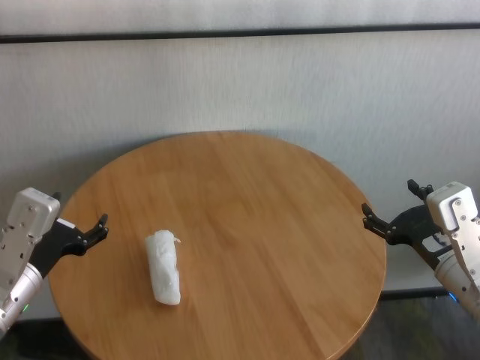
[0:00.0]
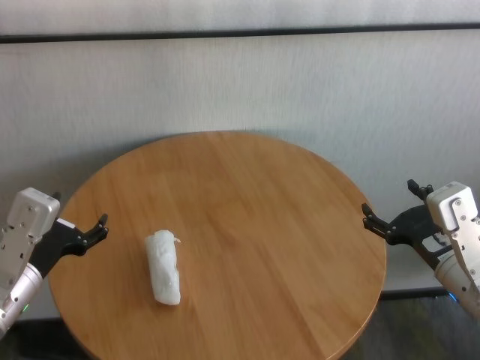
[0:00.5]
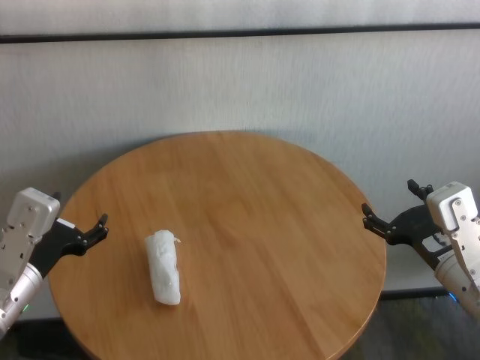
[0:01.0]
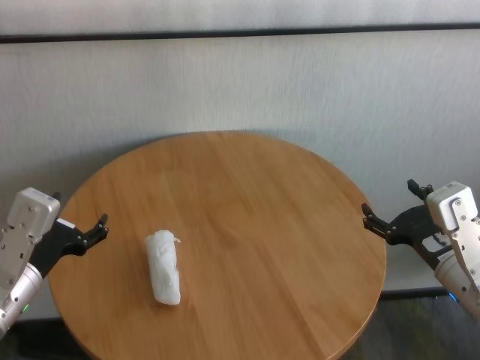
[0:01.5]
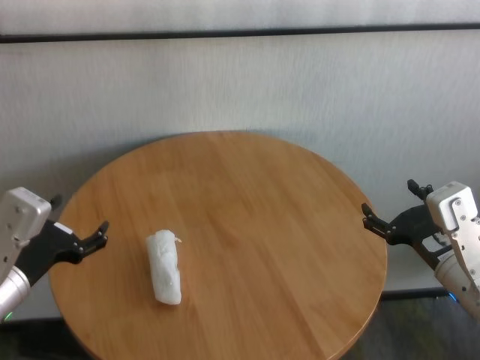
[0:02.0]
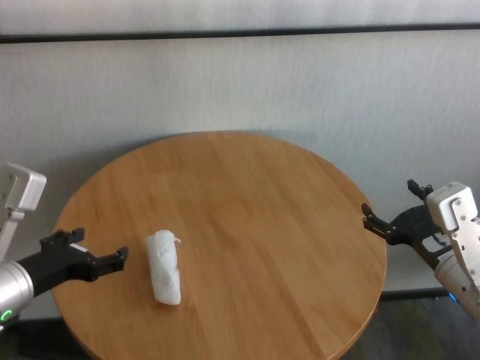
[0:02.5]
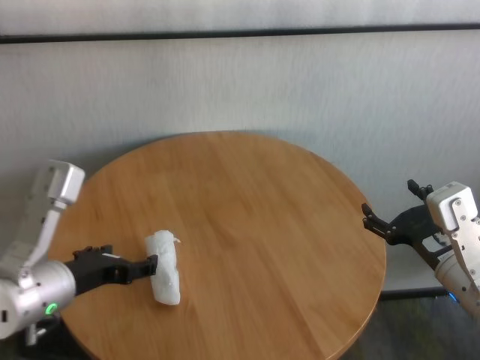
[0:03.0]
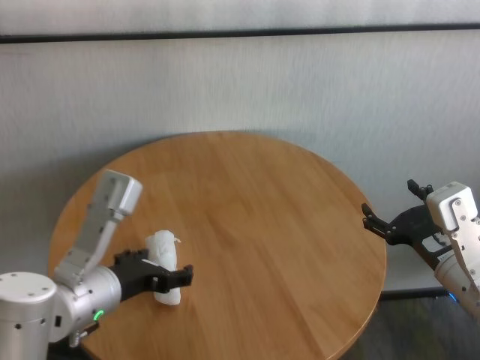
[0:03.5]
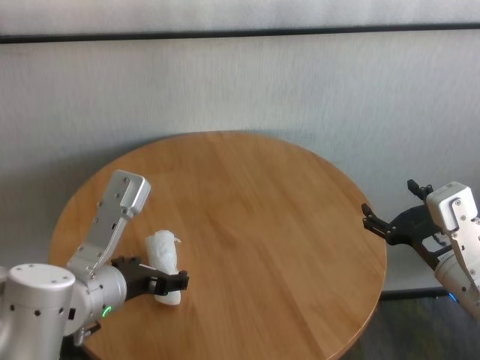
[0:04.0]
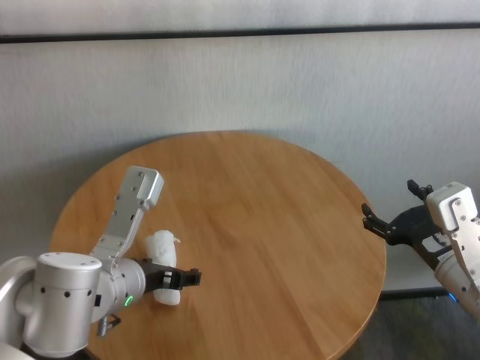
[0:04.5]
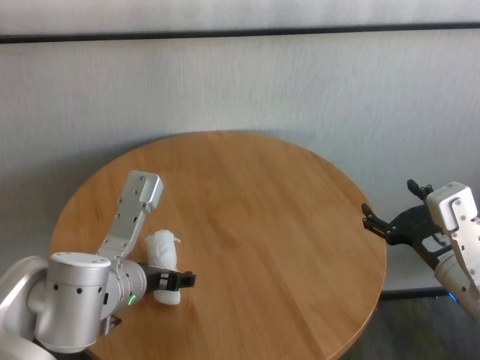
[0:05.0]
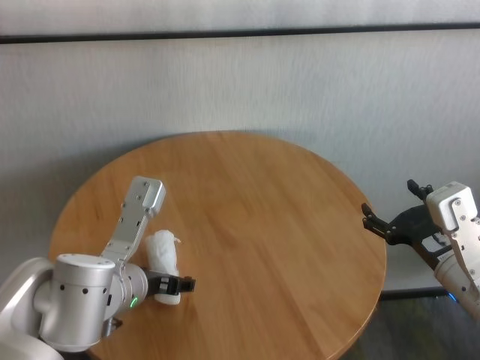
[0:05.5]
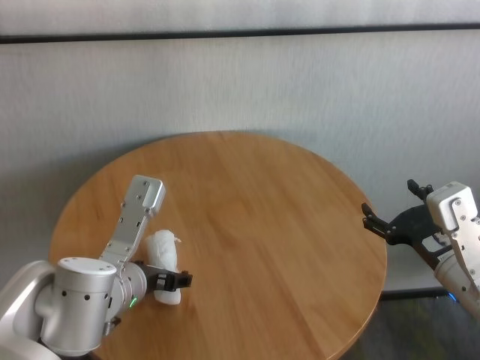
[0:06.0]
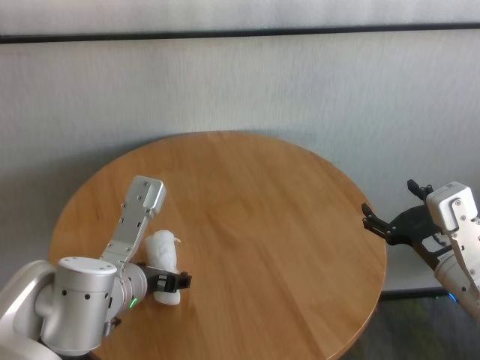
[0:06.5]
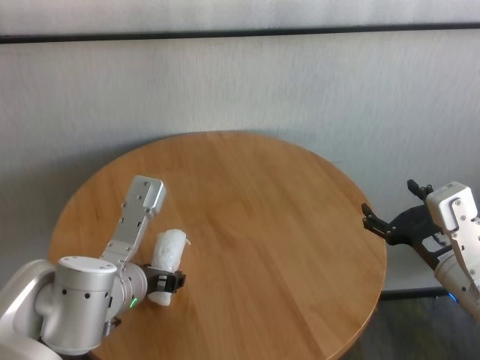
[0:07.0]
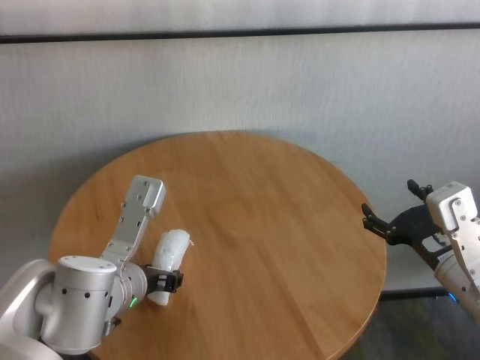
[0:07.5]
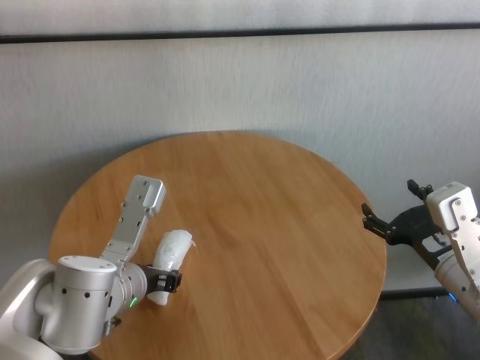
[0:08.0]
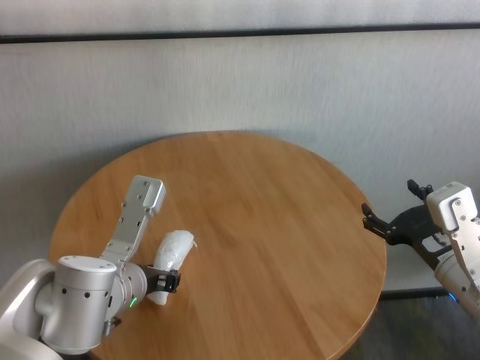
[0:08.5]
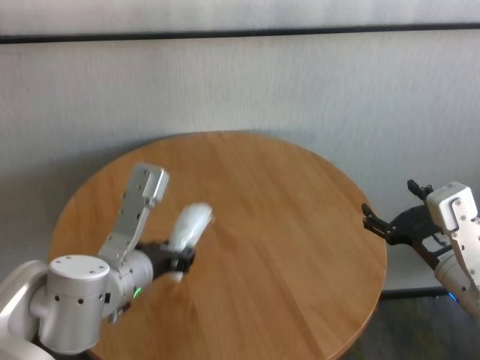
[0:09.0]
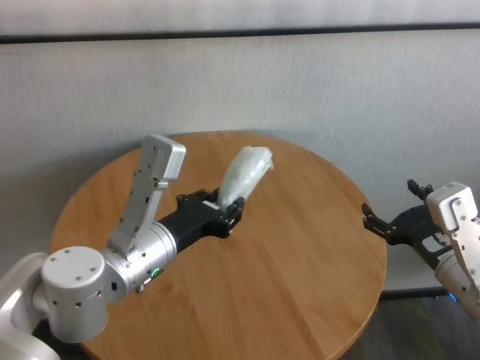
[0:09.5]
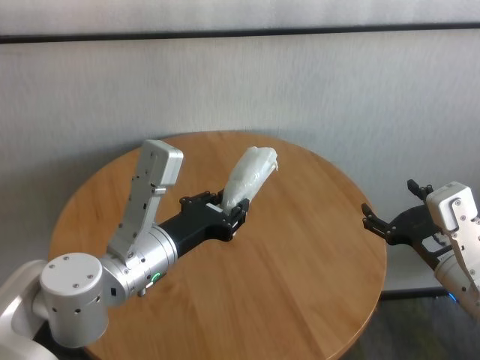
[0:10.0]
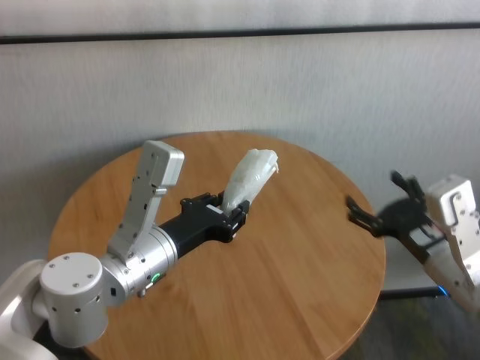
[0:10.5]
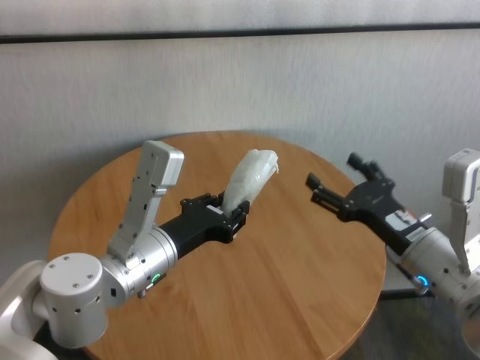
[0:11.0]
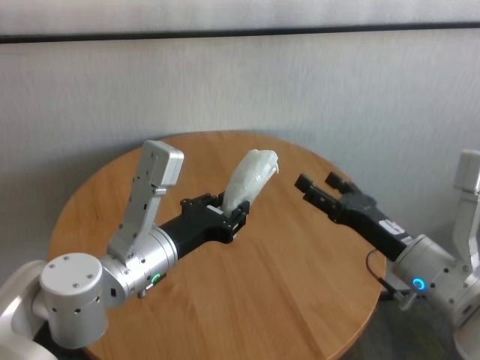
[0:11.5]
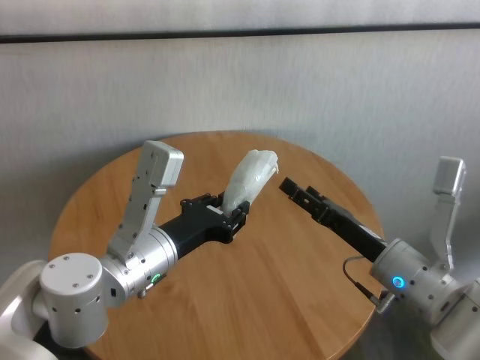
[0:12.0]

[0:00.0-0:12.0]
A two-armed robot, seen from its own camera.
Task of the whole recording: One hand took the sandbag from the other hand and placed it on the table.
Step, 0:00.0 to 0:08.0: Grasp the paper ball with left gripper.

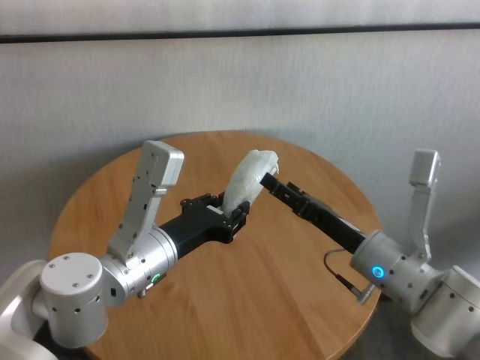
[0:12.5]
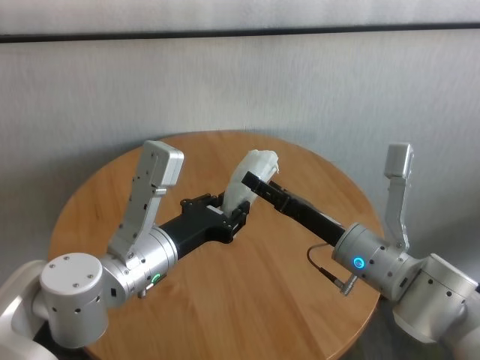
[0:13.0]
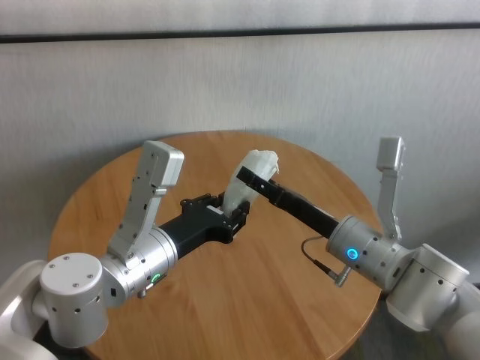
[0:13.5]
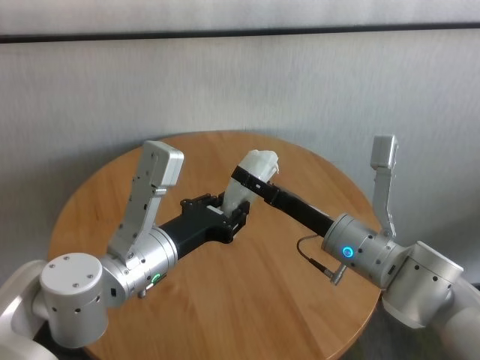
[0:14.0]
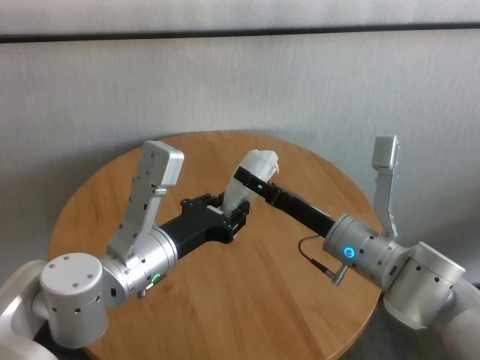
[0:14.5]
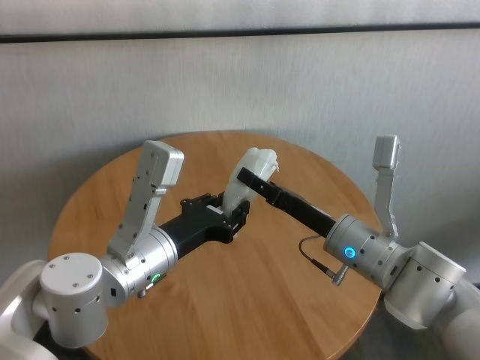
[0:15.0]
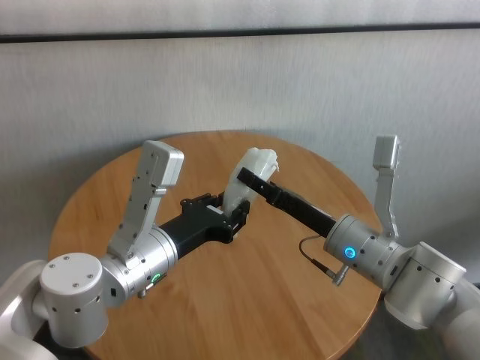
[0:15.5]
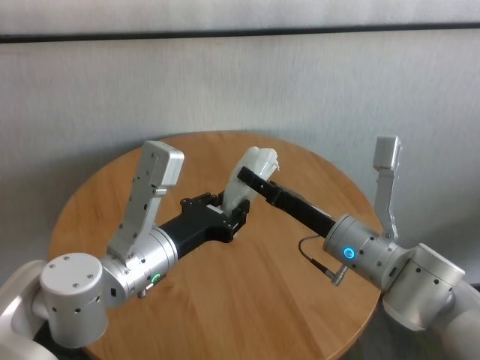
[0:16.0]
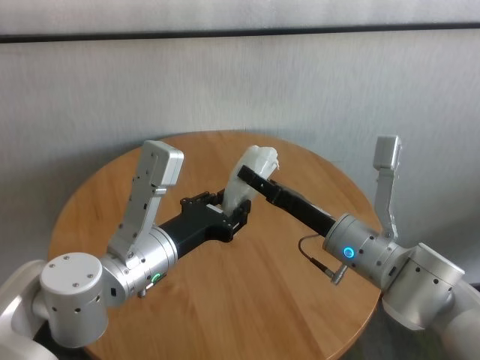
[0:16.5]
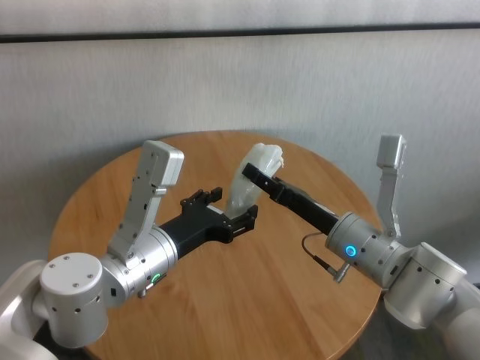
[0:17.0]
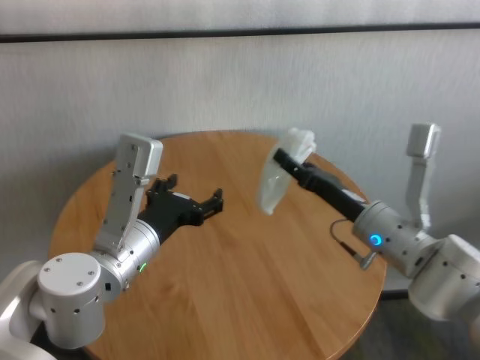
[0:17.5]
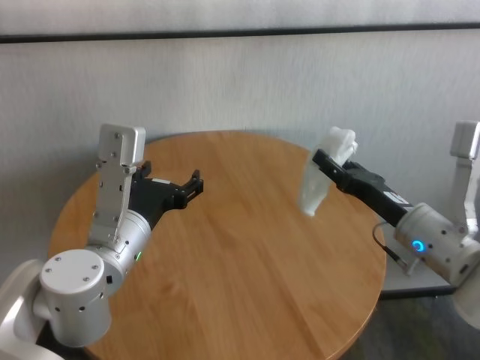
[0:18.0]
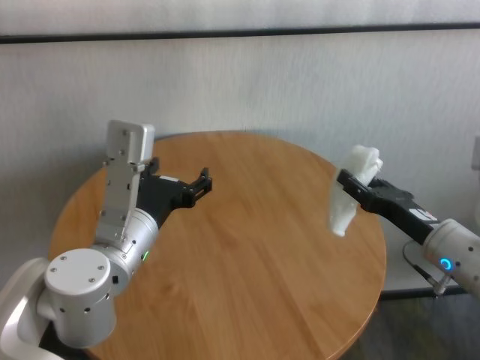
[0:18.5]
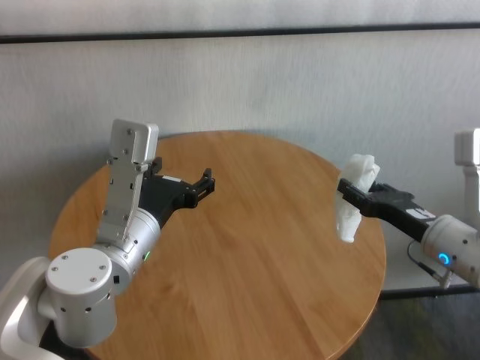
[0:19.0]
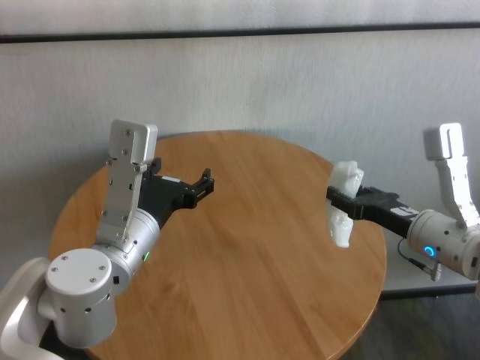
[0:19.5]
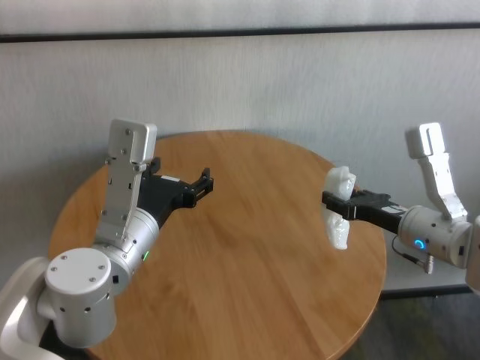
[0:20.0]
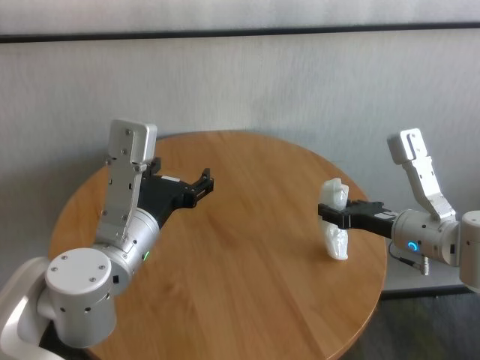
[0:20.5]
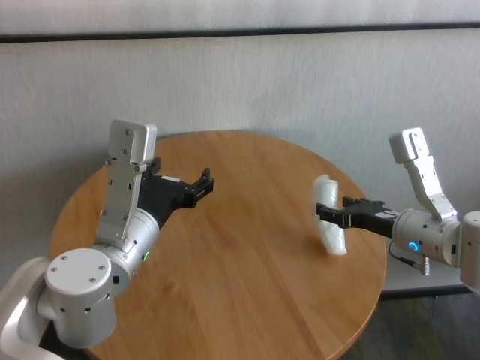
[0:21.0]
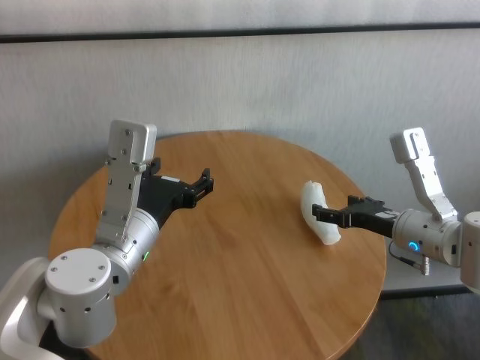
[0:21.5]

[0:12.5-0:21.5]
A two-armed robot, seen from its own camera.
Task of the whole recording: One hand took the sandbag from the other hand and placed it on the table.
Step, 0:12.5 to 0:17.0: Pass the paper ball to the right gripper.
Step, 0:17.5 to 0:21.0: Place the paper ball on the table with right gripper.
